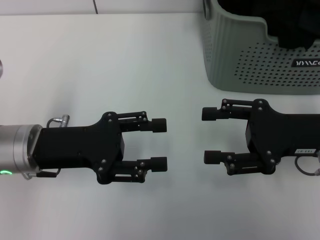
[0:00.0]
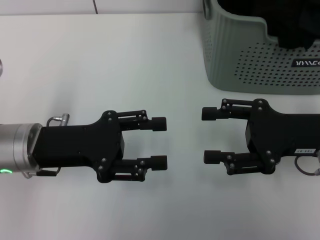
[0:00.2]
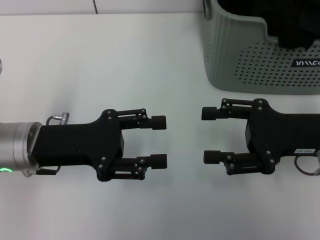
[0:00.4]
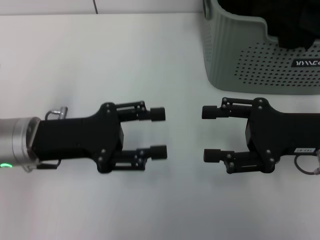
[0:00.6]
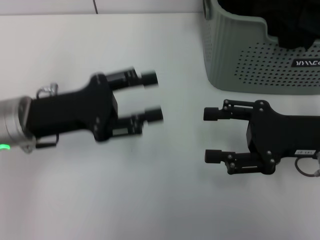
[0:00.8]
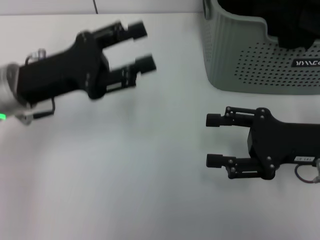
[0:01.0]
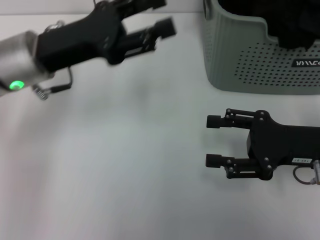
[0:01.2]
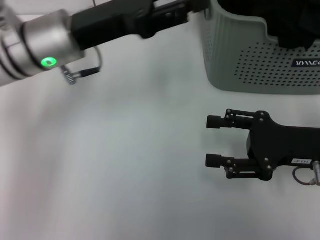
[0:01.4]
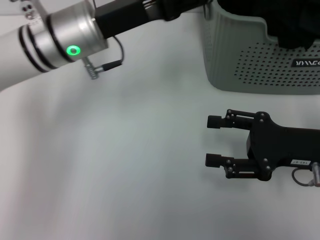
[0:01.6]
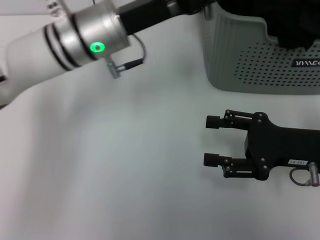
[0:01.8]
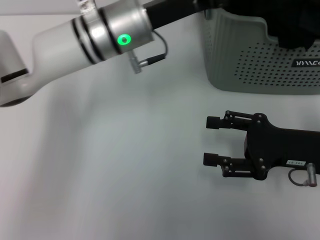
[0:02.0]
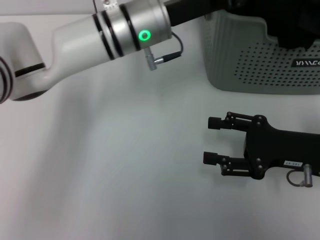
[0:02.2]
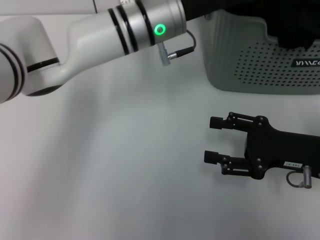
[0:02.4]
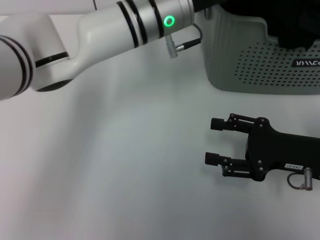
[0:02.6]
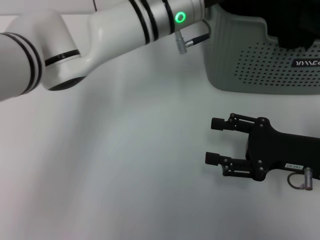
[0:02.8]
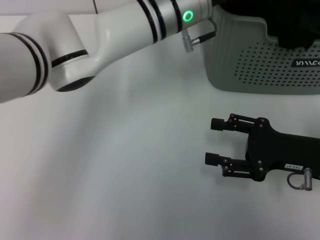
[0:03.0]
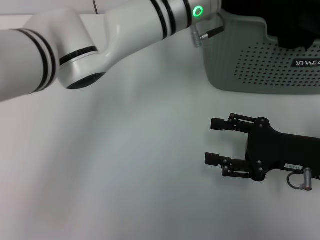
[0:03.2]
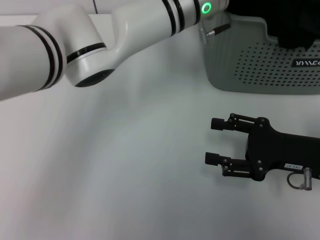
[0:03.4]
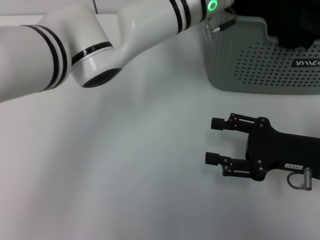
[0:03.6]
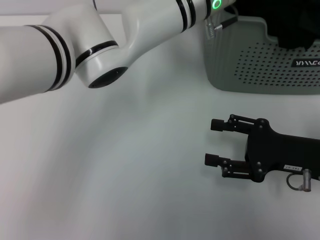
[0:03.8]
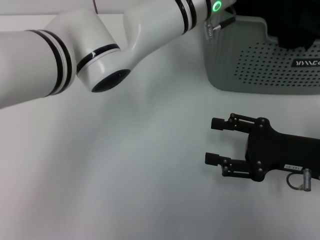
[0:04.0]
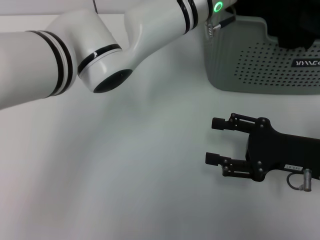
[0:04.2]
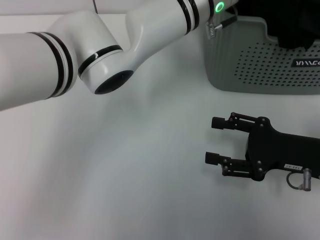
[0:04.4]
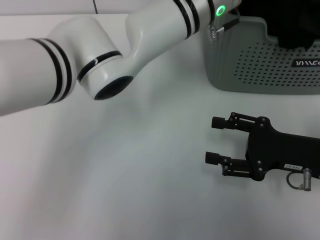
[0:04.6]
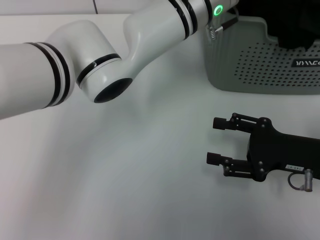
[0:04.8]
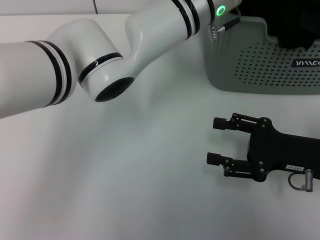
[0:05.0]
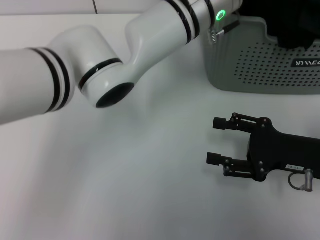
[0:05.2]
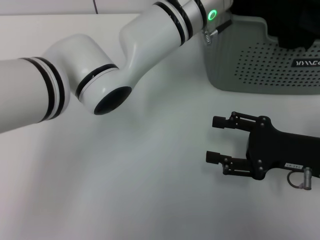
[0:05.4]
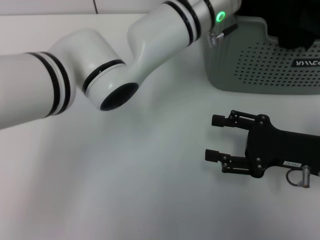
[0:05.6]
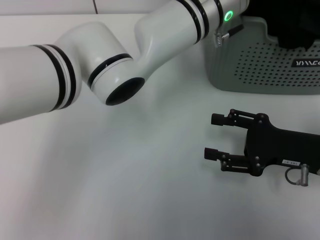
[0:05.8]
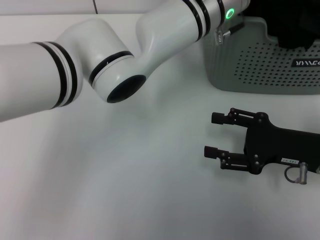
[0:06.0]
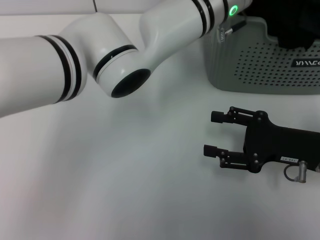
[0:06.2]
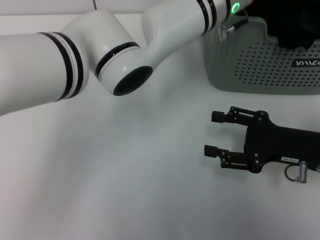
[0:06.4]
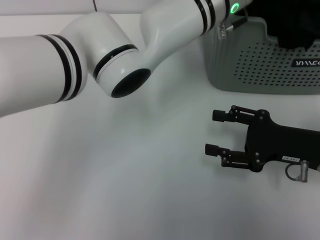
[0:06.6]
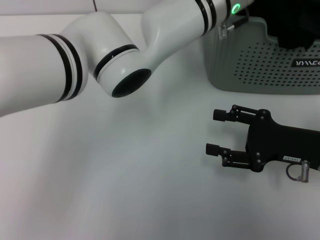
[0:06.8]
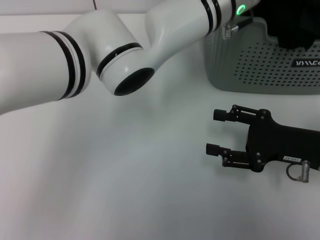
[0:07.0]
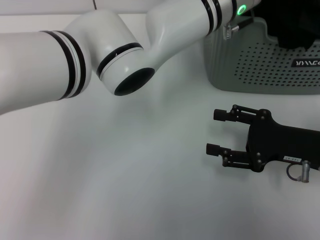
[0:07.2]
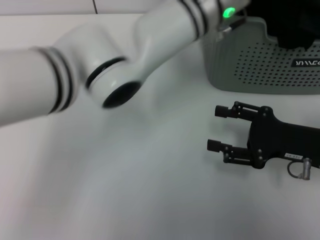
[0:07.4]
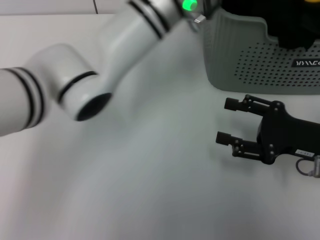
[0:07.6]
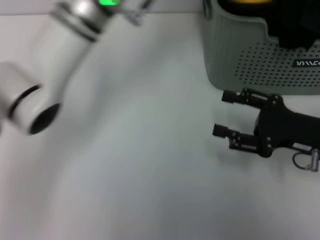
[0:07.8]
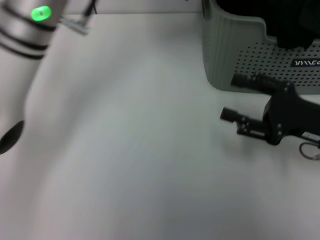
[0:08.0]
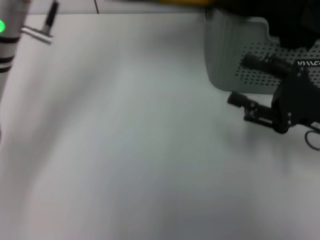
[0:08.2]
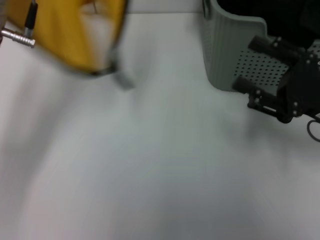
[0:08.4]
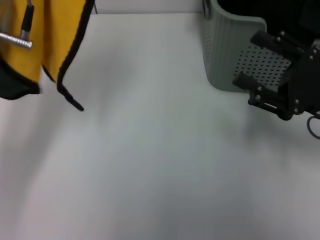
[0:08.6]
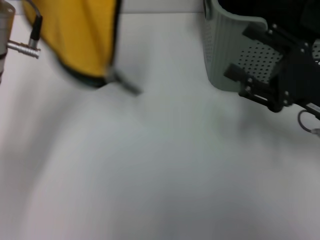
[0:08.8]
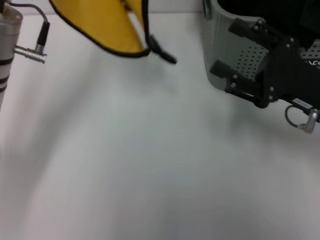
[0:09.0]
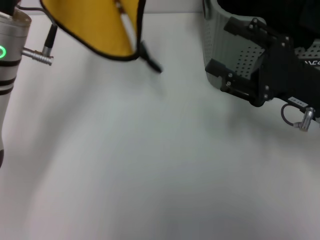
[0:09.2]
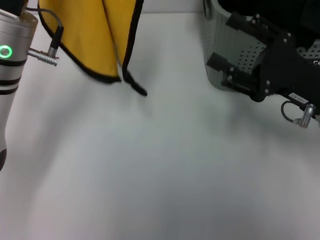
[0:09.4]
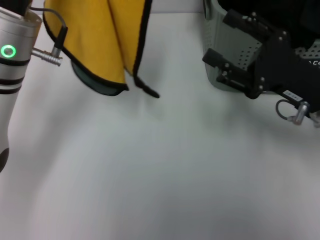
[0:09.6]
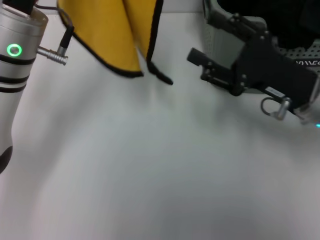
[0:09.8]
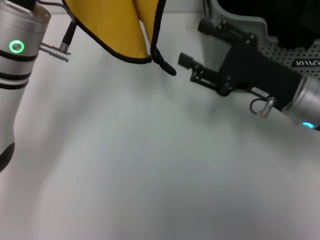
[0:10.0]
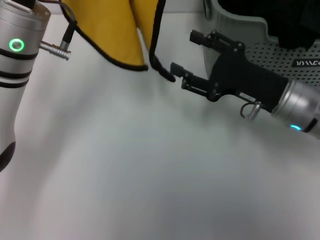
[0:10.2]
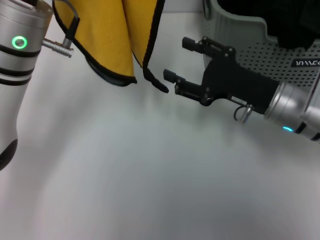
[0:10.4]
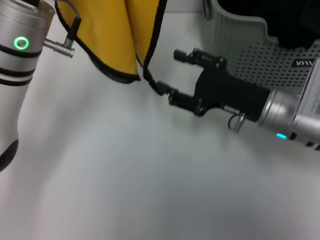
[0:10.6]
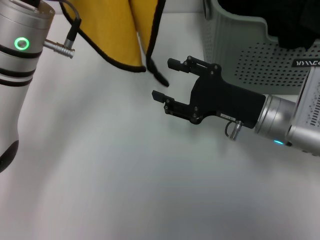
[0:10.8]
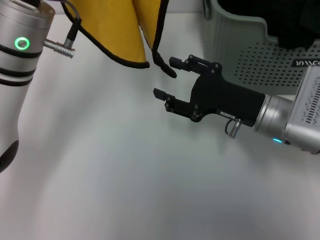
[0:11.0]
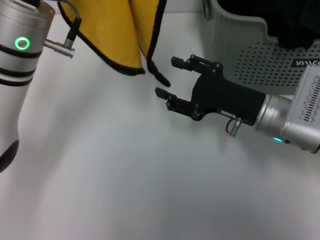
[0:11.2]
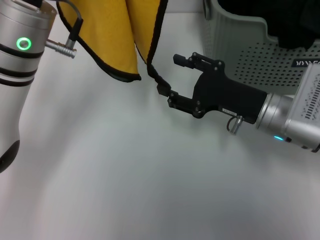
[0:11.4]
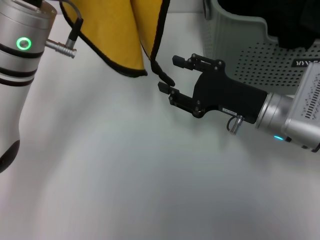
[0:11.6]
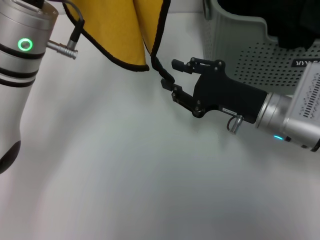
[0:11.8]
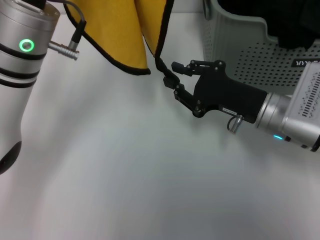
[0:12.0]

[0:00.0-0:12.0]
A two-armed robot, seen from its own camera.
Task of the whole recording: pick up the towel from the storage box and lay it flat on the table.
Step, 0:00.0 to 0:07.6: Pick up a towel with the left gripper.
0:00.0 to 0:01.6: The left gripper shifts some 15 cm forward, to the right and upward.
0:01.6 to 0:03.0: The left gripper is displaced to the right by approximately 15 cm.
0:03.0 to 0:04.4: The left gripper closes its fingers.
0:04.4 to 0:06.0: The left gripper closes and opens again.
0:06.0 to 0:07.6: The left gripper goes roughly 5 cm to the left, and closes its fingers.
0:07.6 to 0:09.0: The left gripper is displaced to the left and backward by roughly 20 cm; the right gripper ends up about 5 cm from where it was.
0:09.0 to 0:10.4: The right gripper is displaced to the left by roughly 5 cm.
0:10.4 to 0:12.0: The right gripper closes up.

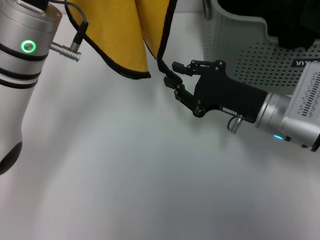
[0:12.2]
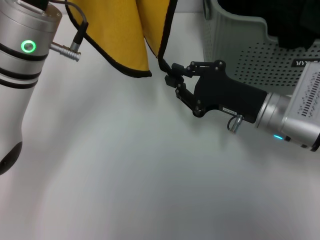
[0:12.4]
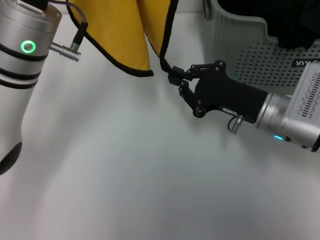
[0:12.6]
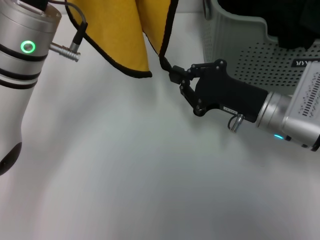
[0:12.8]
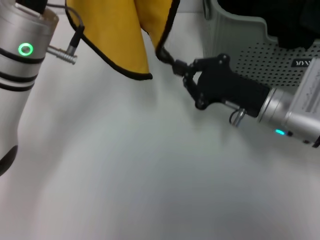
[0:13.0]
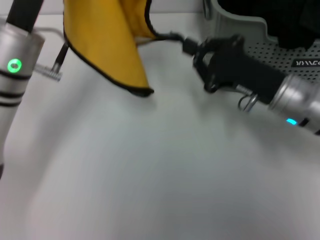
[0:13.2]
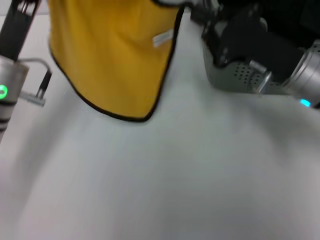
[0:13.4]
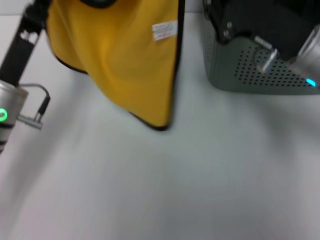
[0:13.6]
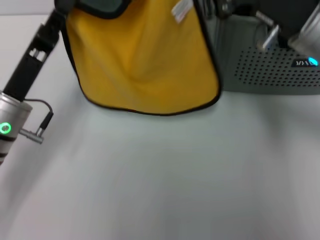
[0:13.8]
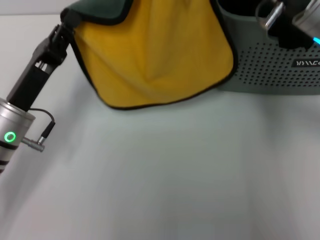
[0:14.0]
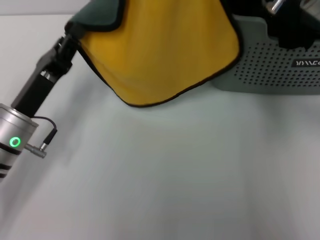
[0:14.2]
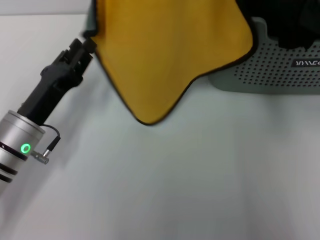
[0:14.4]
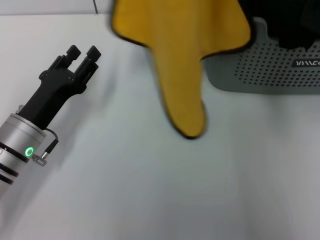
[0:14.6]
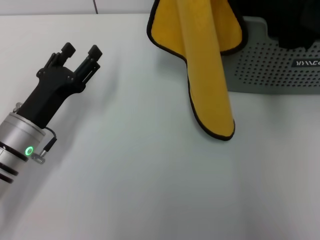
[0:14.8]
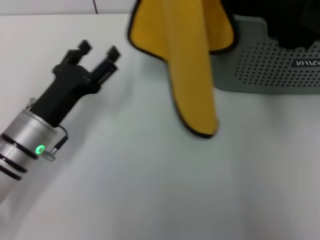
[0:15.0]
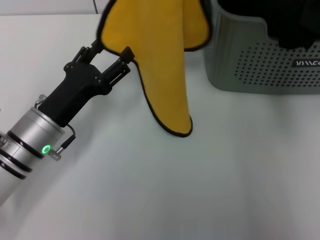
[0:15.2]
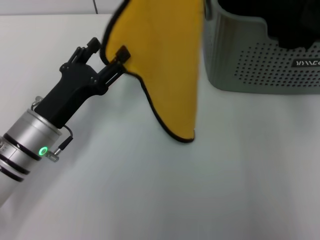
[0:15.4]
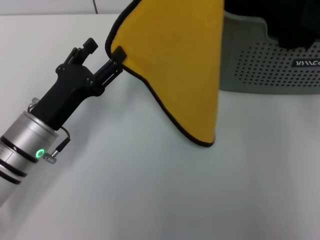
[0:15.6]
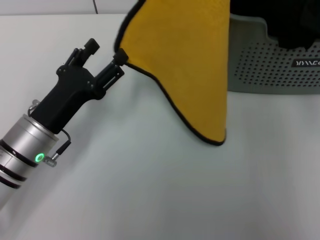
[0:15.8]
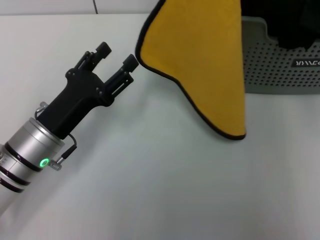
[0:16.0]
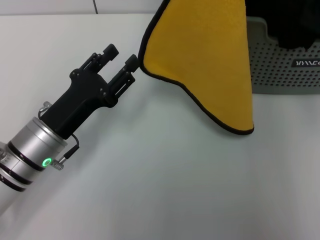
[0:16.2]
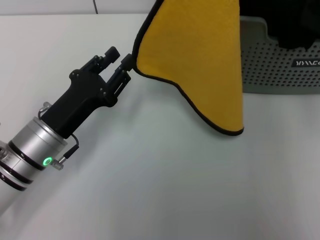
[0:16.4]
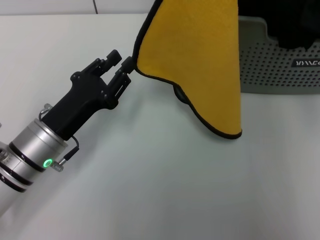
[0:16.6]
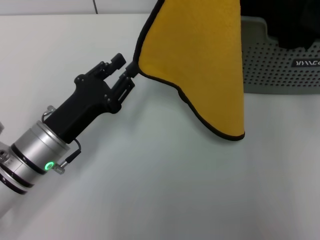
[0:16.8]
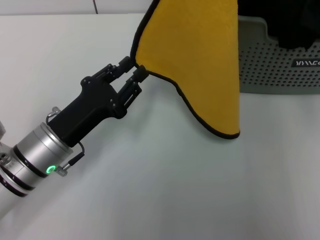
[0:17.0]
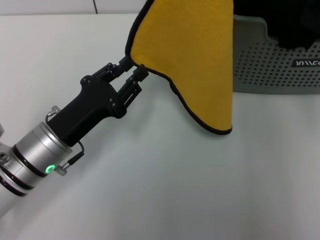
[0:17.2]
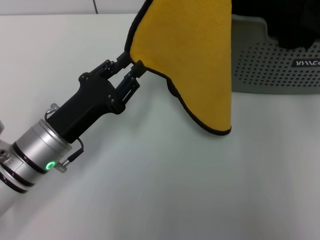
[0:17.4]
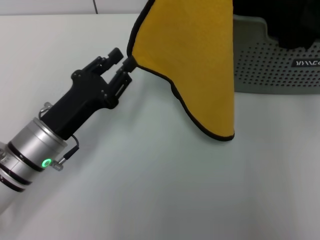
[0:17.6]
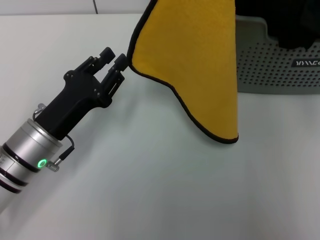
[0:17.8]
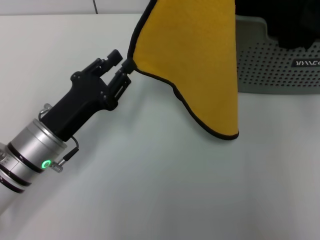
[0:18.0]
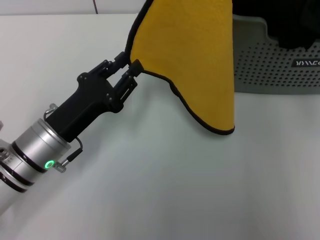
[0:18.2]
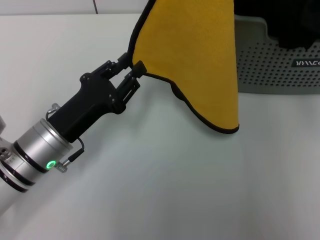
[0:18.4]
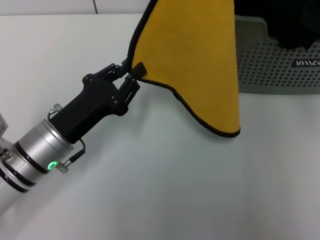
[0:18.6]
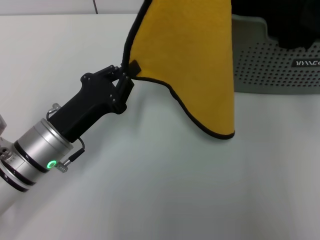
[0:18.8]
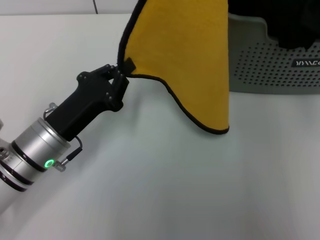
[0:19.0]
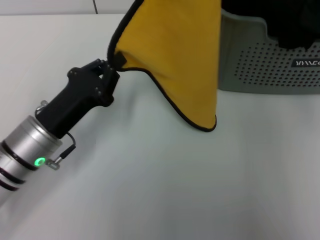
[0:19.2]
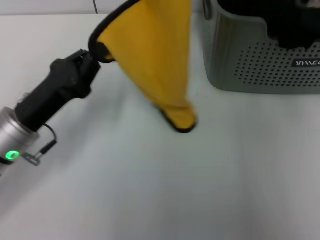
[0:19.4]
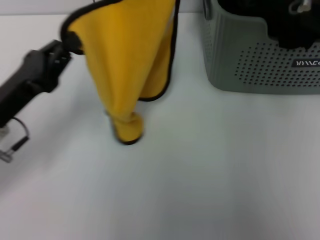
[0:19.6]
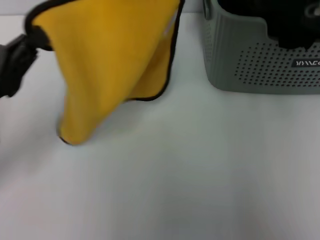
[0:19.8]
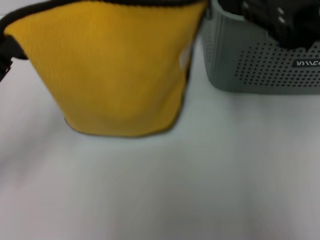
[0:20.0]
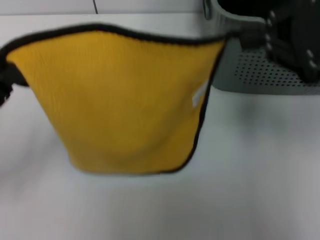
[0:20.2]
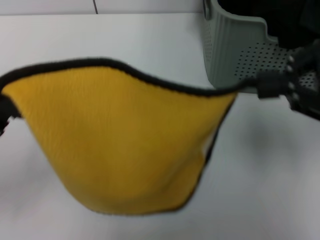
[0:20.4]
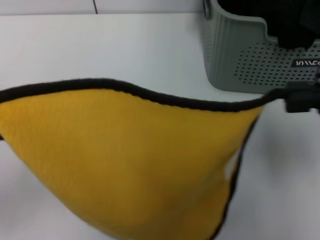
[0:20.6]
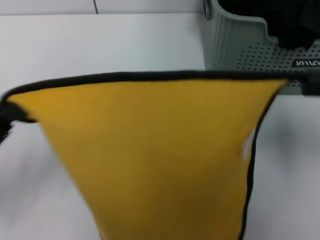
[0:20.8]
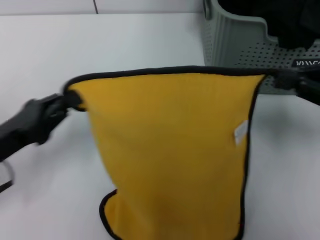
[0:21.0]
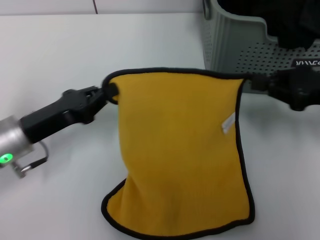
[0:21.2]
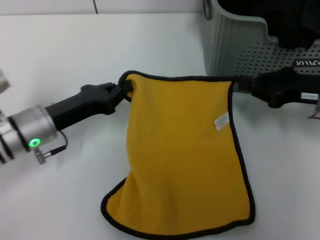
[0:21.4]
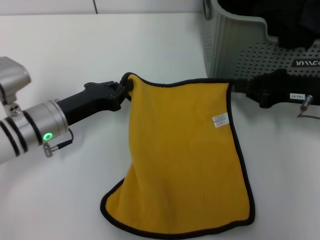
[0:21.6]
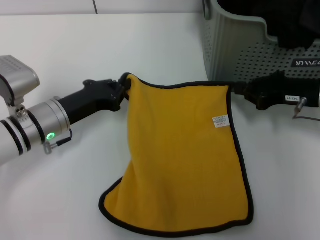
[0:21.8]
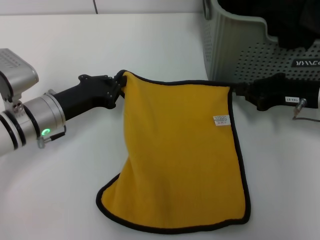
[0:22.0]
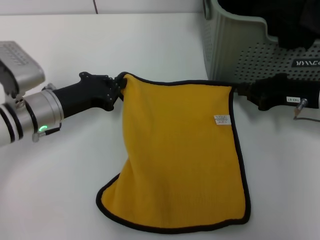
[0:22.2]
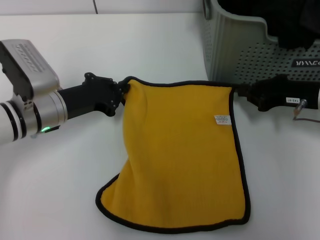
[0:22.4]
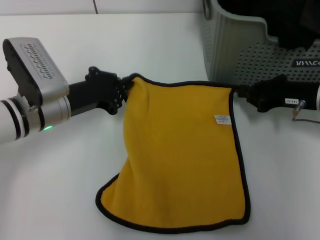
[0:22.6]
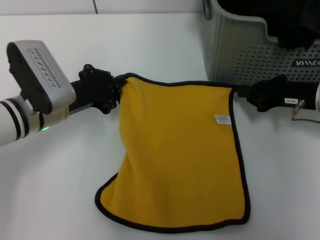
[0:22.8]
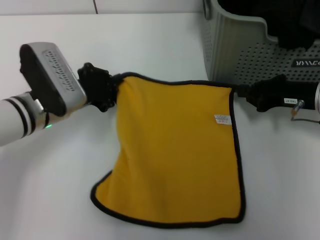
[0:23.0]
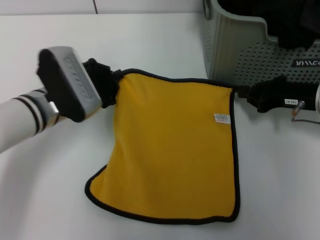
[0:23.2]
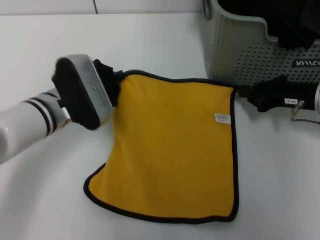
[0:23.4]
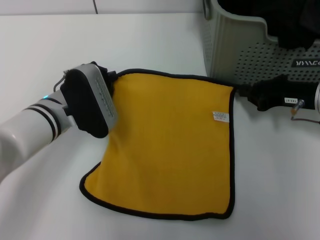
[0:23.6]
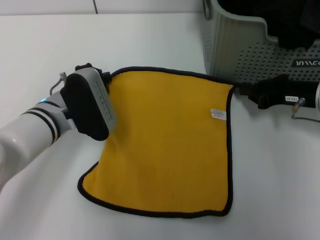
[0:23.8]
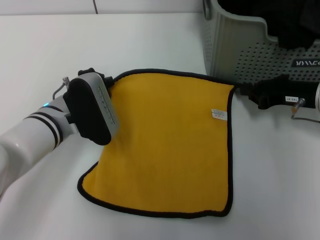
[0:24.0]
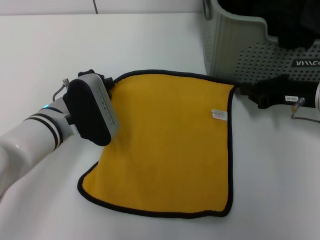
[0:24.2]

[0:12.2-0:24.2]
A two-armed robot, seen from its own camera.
Task of the whole recording: pick up the towel from the storage box and lay it flat on the table.
0:12.2 to 0:13.8: The left gripper shifts approximately 10 cm downward and to the left, while the right gripper goes about 10 cm upward, and closes.
0:13.8 to 0:15.2: The right gripper travels upward by some 10 cm; the left gripper opens its fingers.
0:15.2 to 0:16.6: The left gripper closes.
0:16.6 to 0:18.2: The grippers make only small movements.
0:18.2 to 0:19.8: The left gripper moves to the left and upward, roughly 10 cm, and closes its fingers.
0:19.8 to 0:21.2: The left gripper goes backward and returns, roughly 10 cm each way. The right gripper heads downward and to the right, covering approximately 15 cm.
0:21.2 to 0:22.6: The left gripper shifts some 5 cm forward, while the right gripper ends up roughly 5 cm from where it was.
